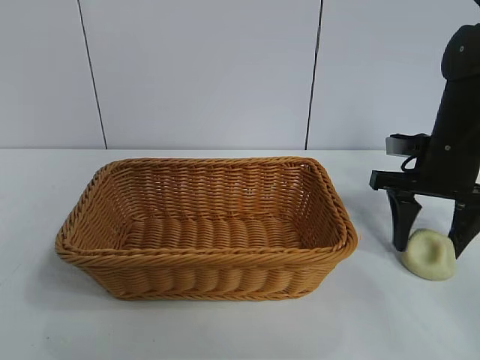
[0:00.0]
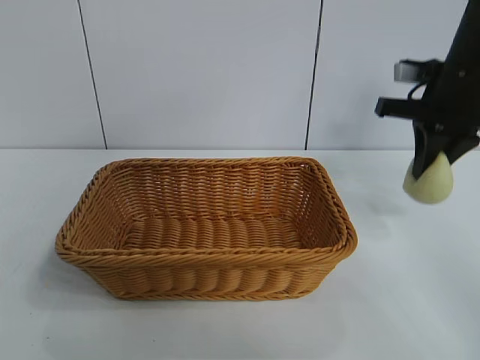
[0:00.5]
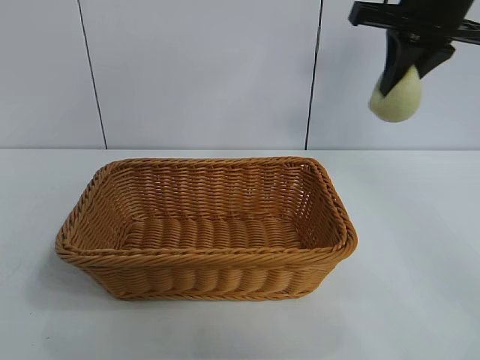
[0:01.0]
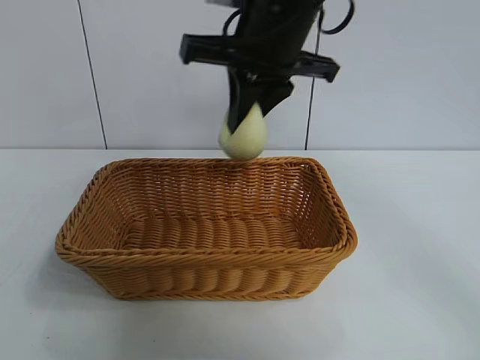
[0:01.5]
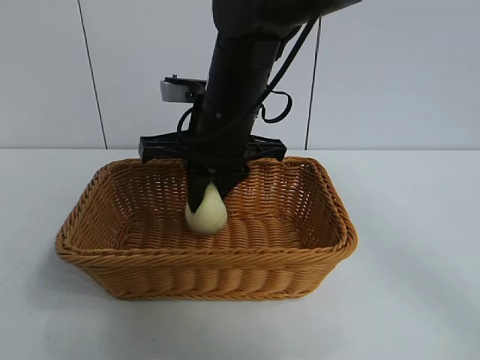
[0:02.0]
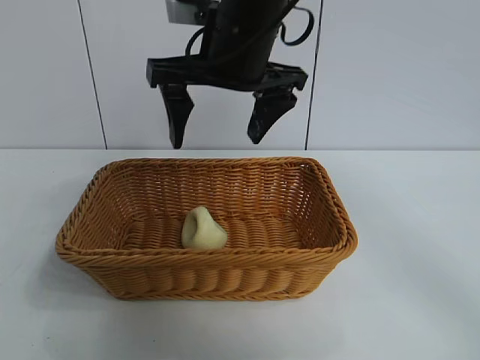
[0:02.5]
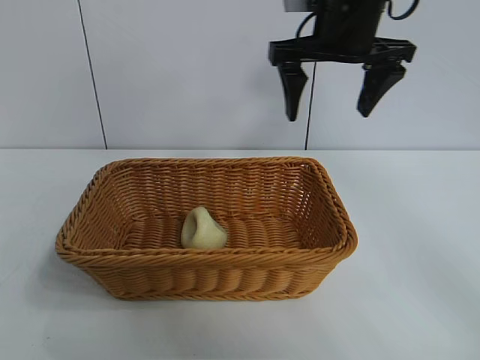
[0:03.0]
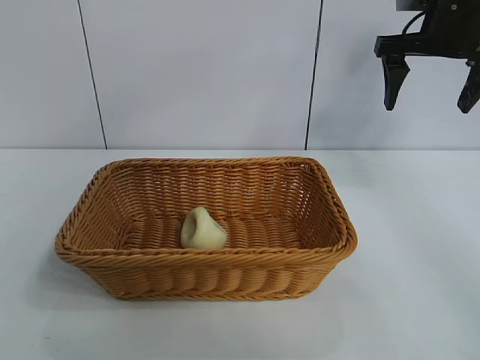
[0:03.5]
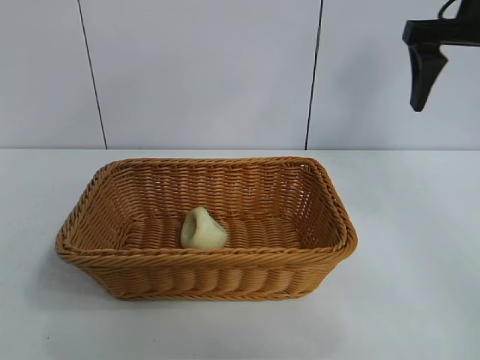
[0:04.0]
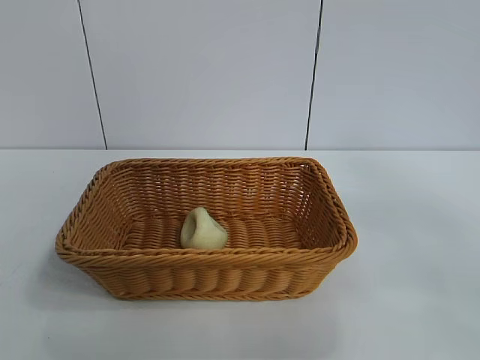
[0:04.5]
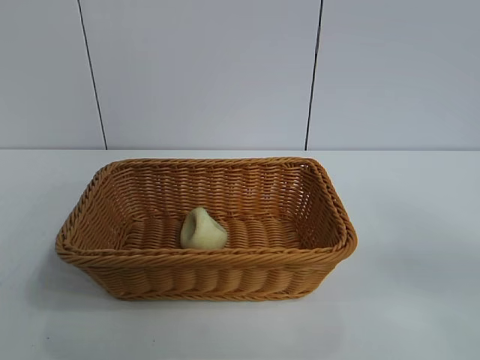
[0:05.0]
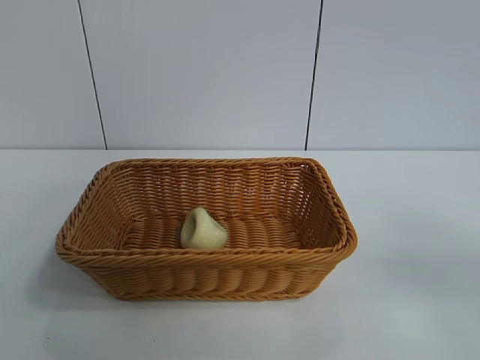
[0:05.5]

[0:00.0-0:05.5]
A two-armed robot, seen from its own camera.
Task of the whole recording: pick up the egg yolk pastry and put it into the basket.
Step, 0:00.5 to 0:02.0: Place the egg yolk pastry in the basket with right gripper.
